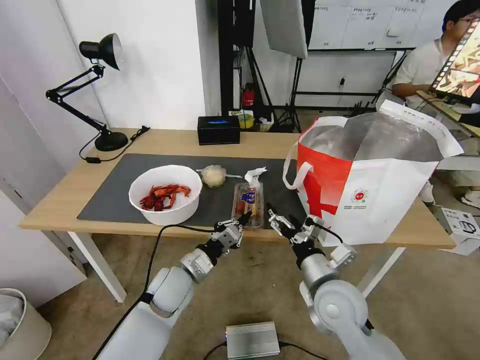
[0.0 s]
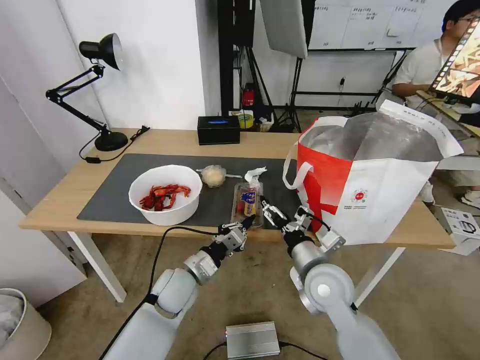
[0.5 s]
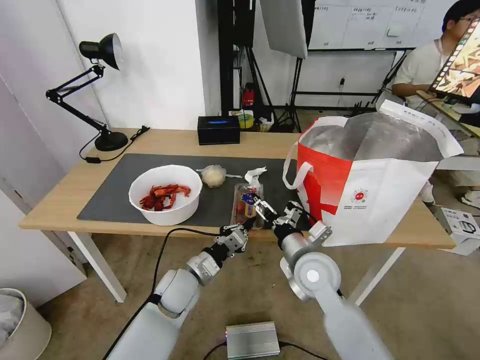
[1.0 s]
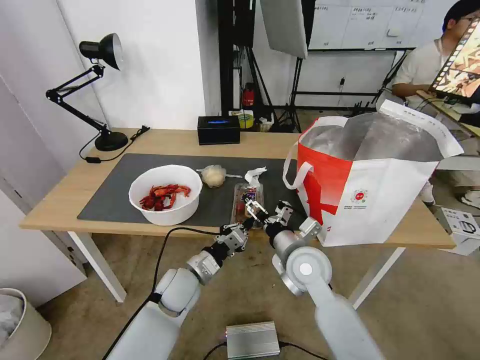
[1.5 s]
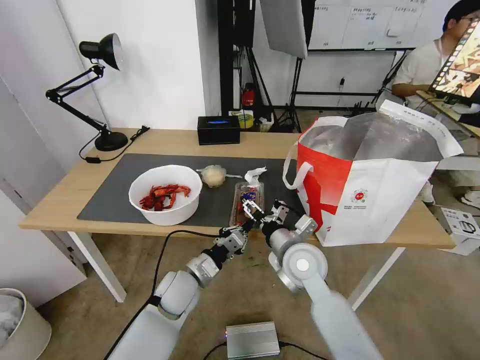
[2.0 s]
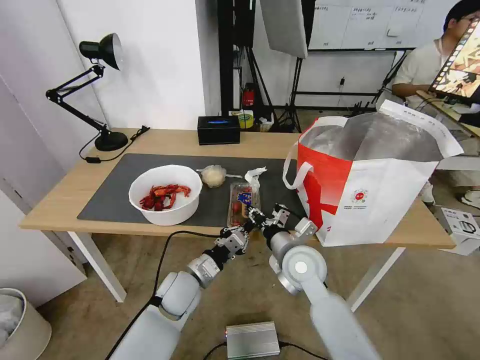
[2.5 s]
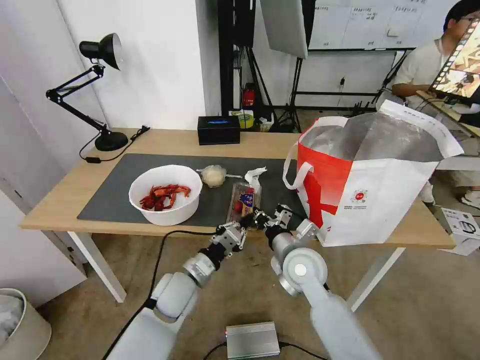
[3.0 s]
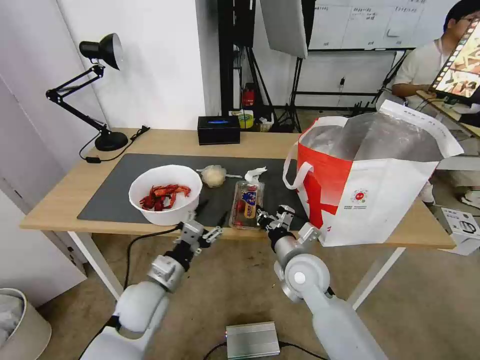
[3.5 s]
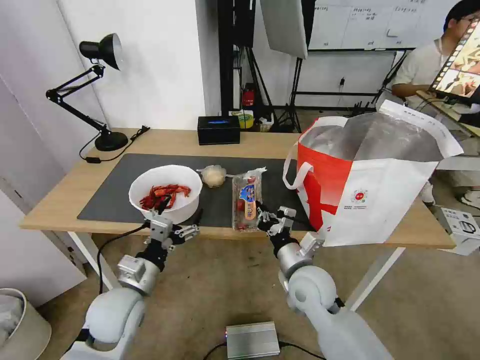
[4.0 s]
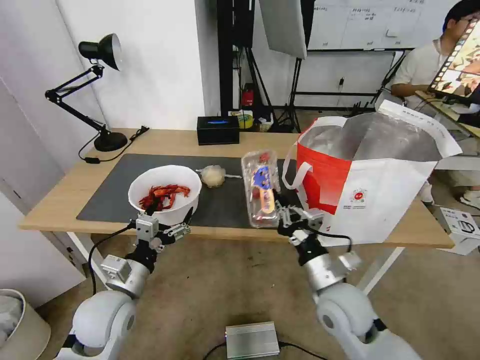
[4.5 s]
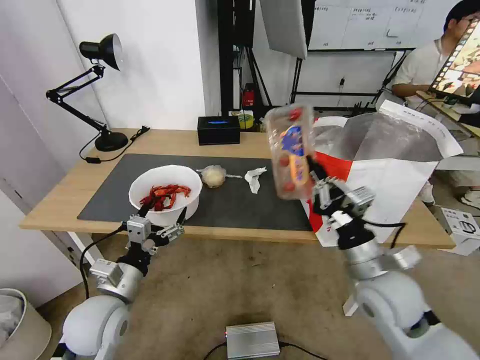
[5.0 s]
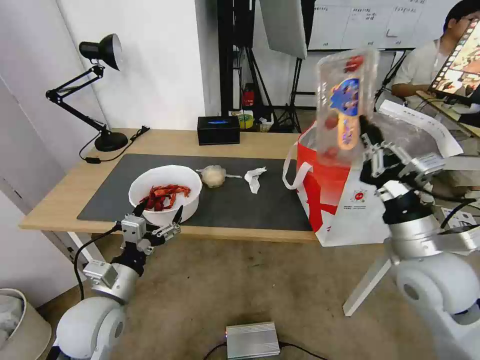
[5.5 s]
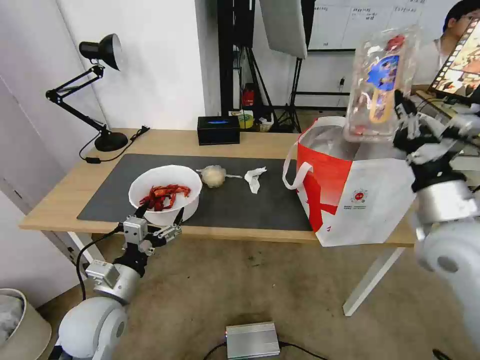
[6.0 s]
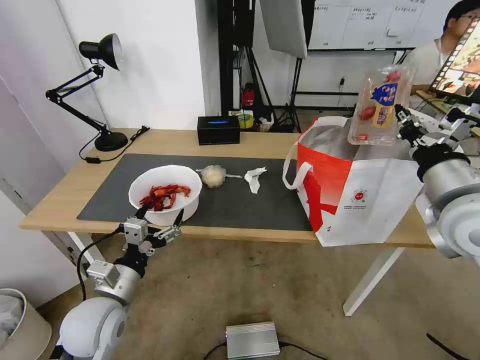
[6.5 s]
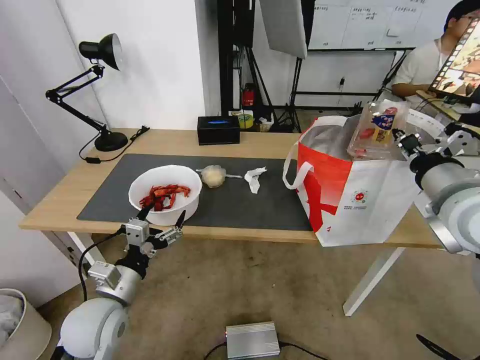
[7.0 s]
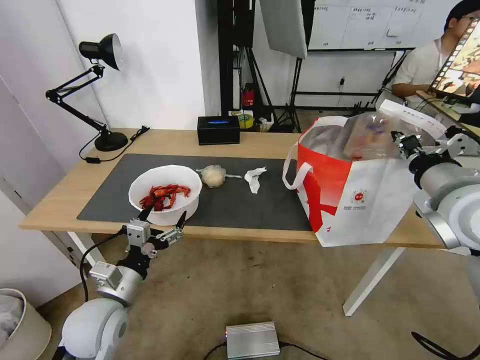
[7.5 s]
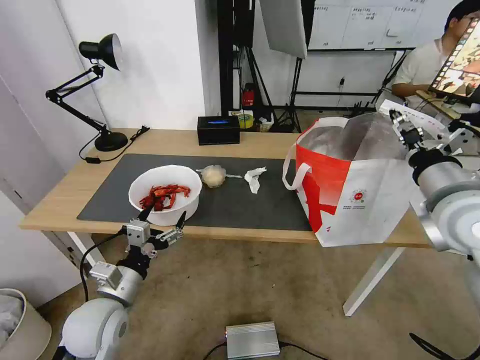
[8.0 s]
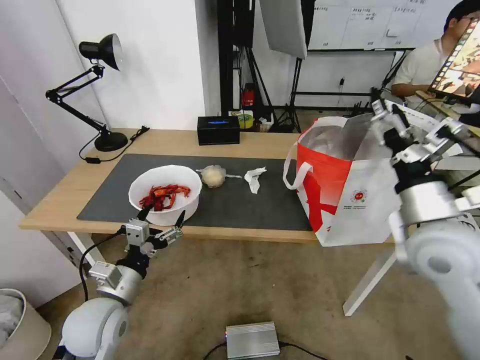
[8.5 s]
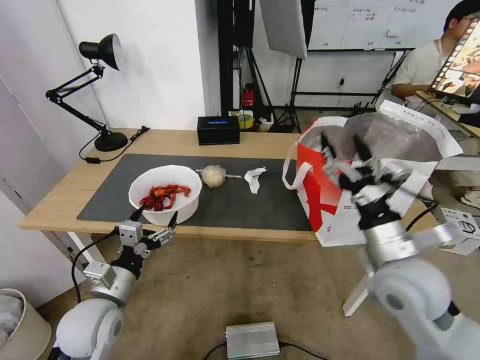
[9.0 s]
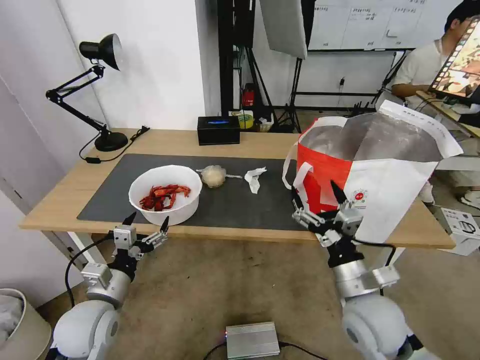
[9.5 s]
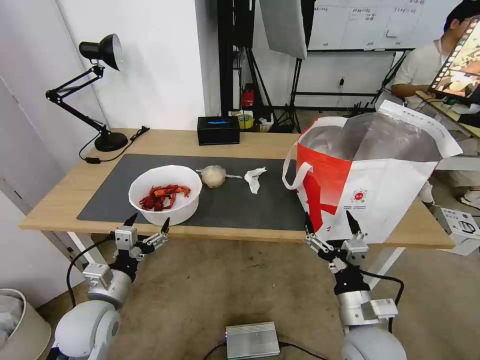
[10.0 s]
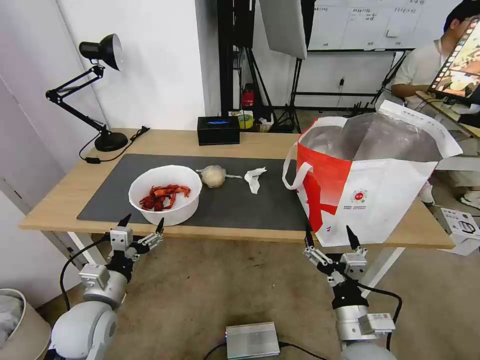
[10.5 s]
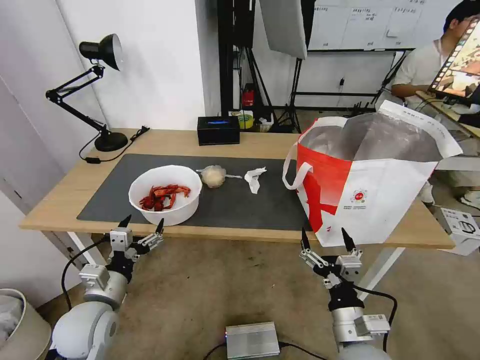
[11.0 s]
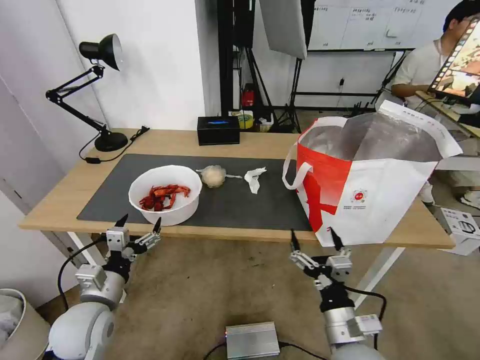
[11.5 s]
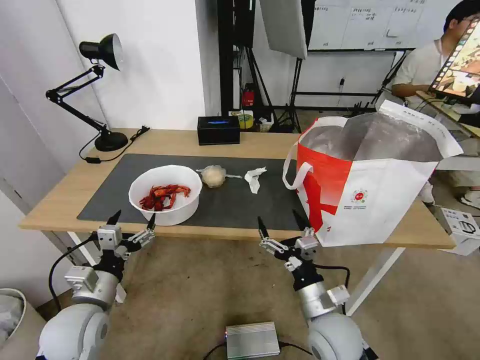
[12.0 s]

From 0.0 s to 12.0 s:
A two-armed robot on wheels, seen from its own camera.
Task of the whole recording: Pick up the trash from the table and place it into the takeout bag.
From 0.0 s to 2.0 s: The right gripper moves forward and to the left, some 10 cm.
From 2.0 s to 4.0 s: The right gripper changes place by approximately 5 cm, and closes up; the left gripper goes roughly 15 cm to the left, upward and backward, and opens.
From 4.0 s to 6.0 s: The right gripper heads upward and to the right, covering some 25 cm.
From 6.0 s to 8.0 s: The right gripper opens.
From 8.0 s to 10.0 s: The right gripper travels downward, backward and to the left by approximately 30 cm, and opens.
From 10.0 s to 12.0 s: The right gripper travels to the left by about 5 cm.

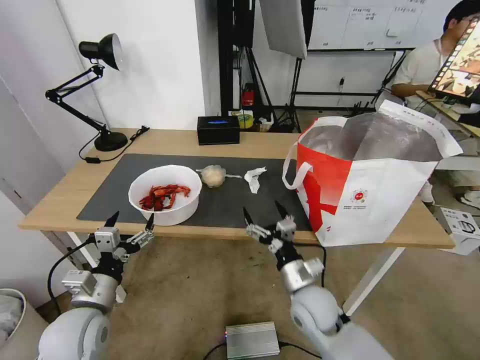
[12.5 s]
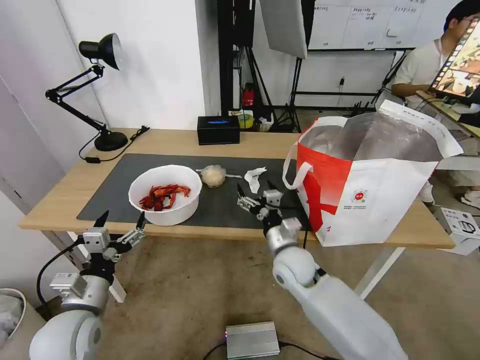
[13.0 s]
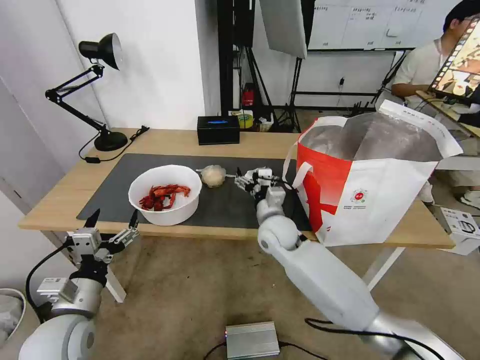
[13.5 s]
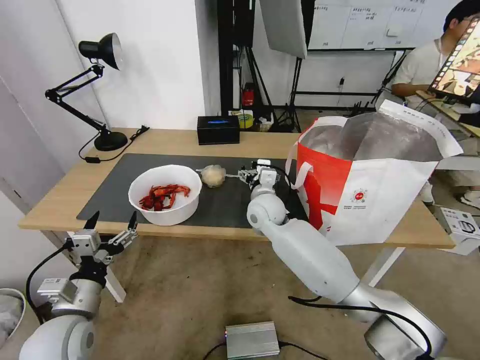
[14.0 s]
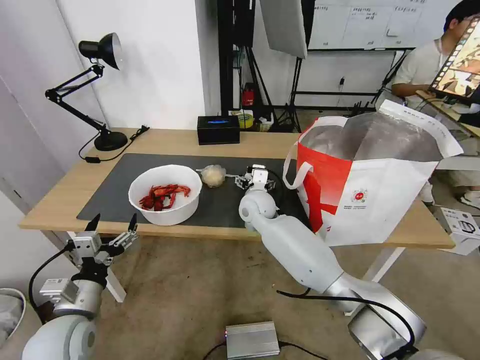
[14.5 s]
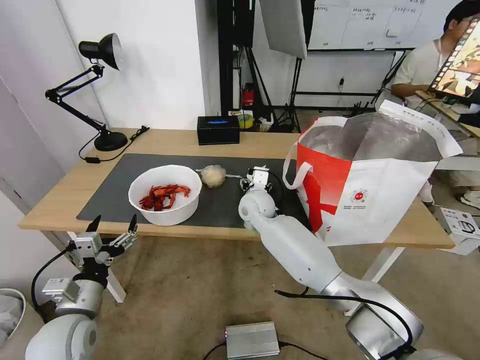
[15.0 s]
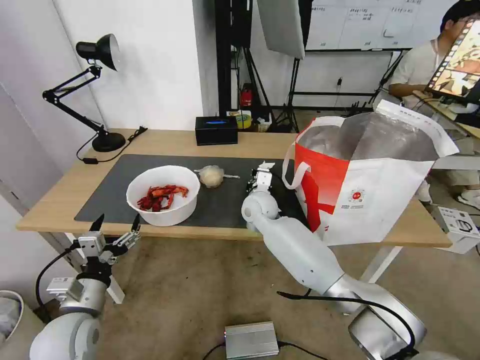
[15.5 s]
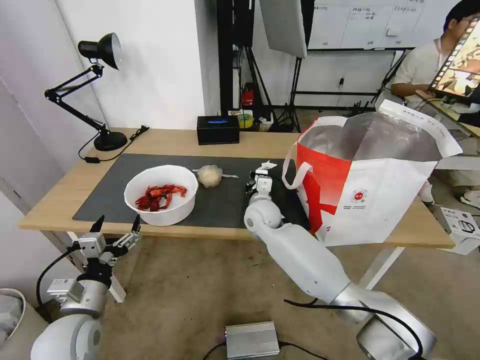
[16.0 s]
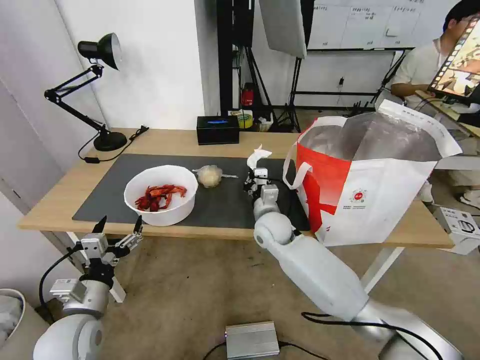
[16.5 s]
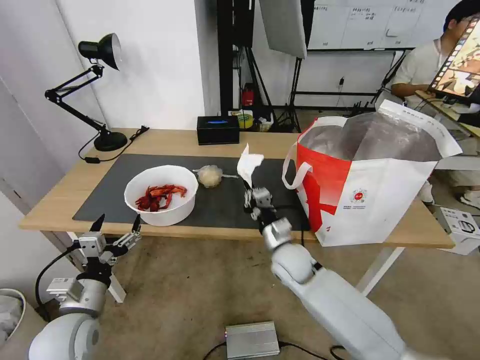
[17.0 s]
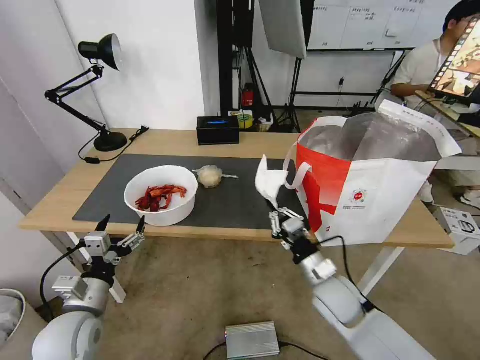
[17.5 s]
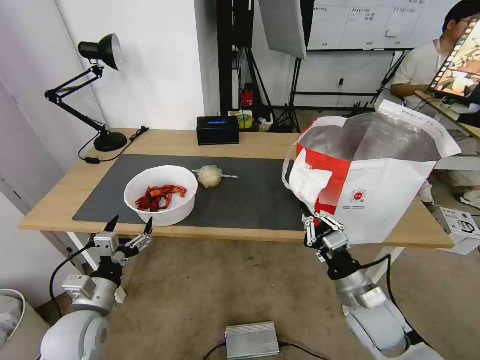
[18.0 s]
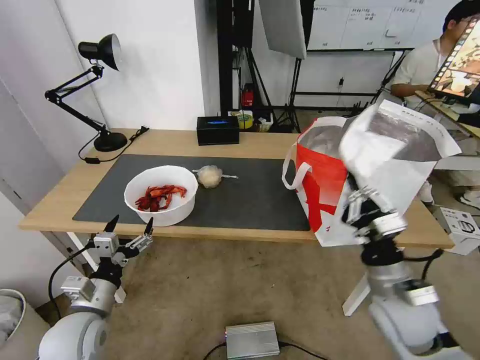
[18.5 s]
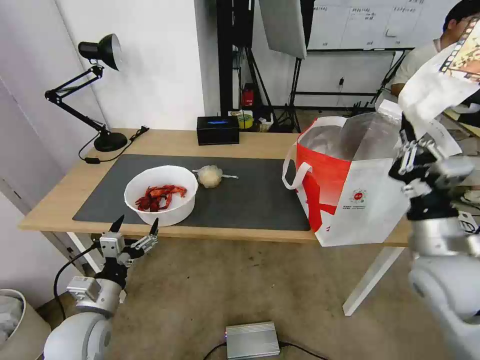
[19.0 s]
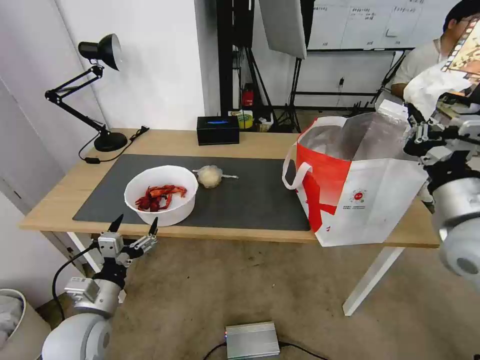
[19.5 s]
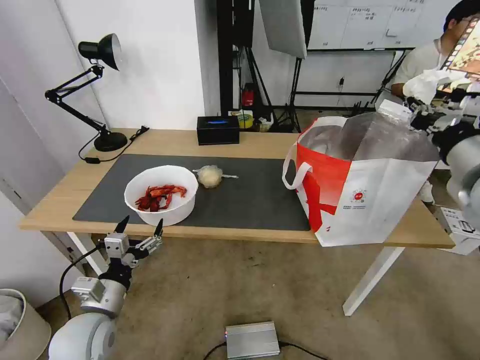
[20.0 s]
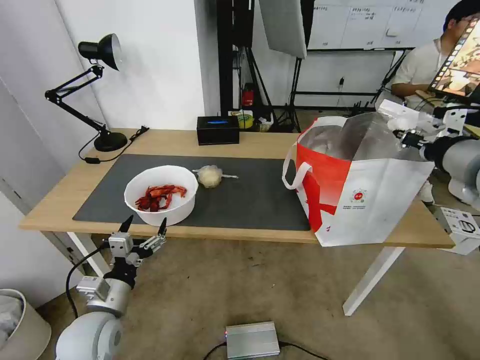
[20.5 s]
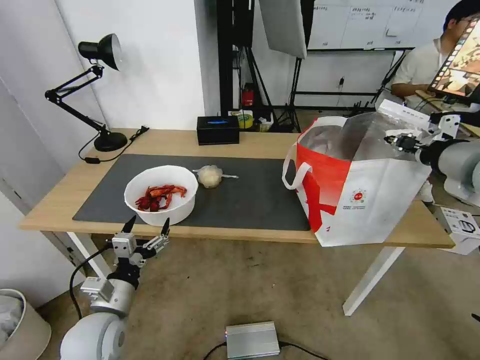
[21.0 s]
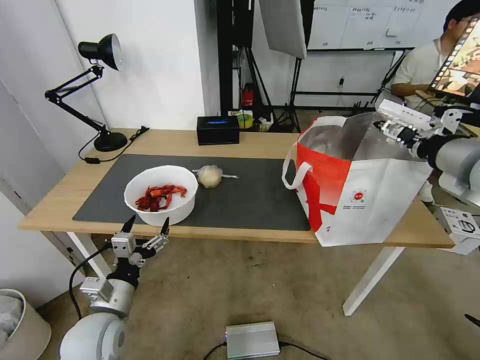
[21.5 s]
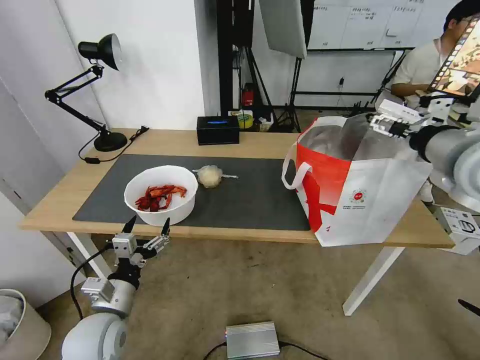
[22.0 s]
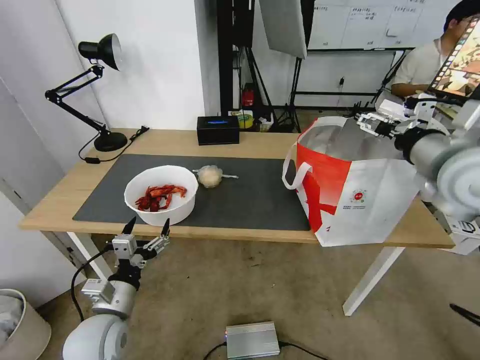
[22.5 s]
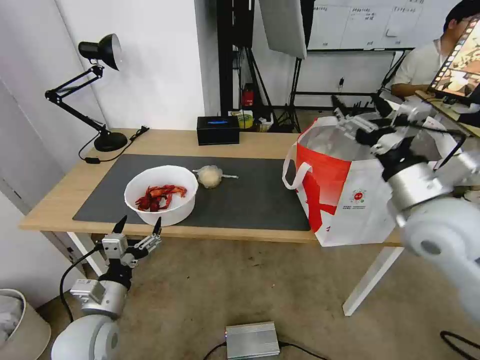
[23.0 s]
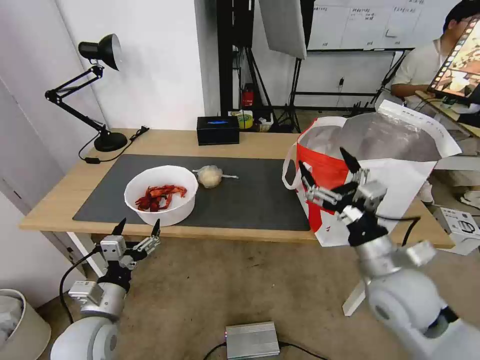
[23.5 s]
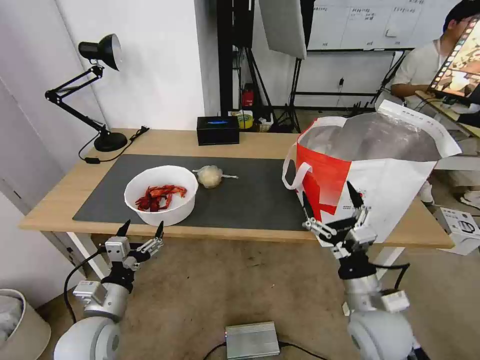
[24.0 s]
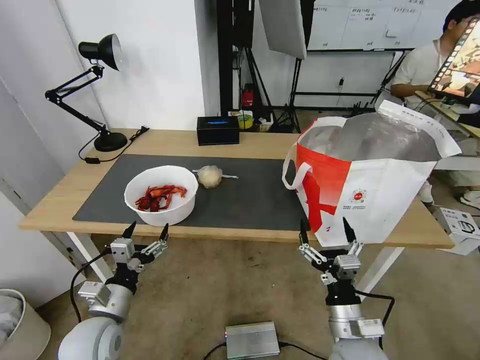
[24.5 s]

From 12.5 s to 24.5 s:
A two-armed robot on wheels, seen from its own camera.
Task of the whole recording: Pick up the trash from the table and place it into the takeout bag.
From 12.5 s to 14.5 s: The right gripper shifts some 25 cm forward and to the left.
From 14.5 s to 16.5 s: The right gripper shifts approximately 5 cm backward, and closes its fingers.
From 16.5 s to 18.5 s: The right gripper heads backward and to the right, covering roughly 30 cm.
From 18.5 s to 20.5 s: The right gripper is displaced upward by roughly 25 cm.
From 20.5 s to 22.5 s: The right gripper opens up.
From 22.5 s to 24.5 s: The right gripper travels downward and backward by about 35 cm.

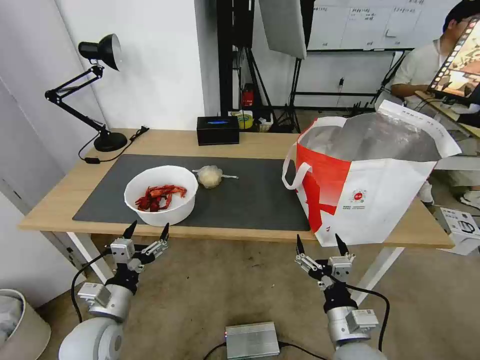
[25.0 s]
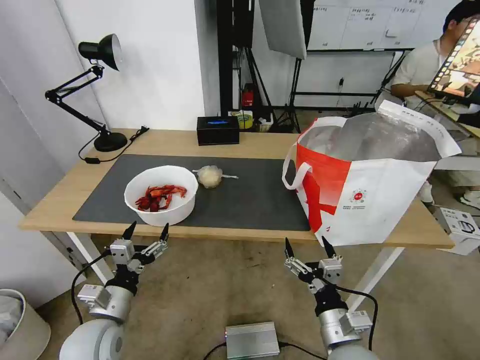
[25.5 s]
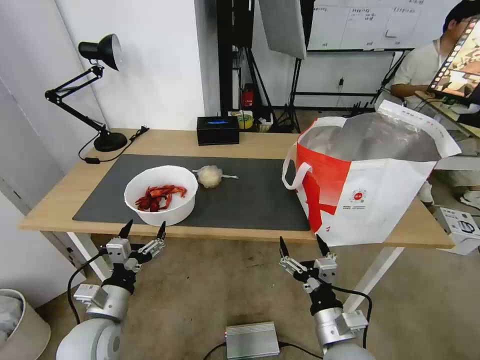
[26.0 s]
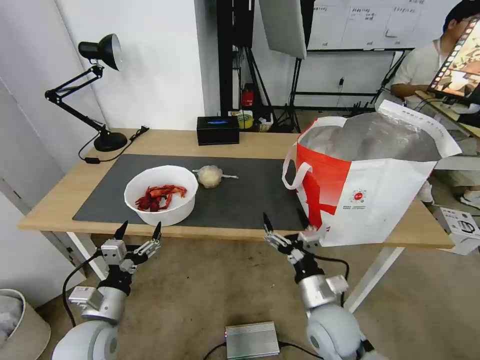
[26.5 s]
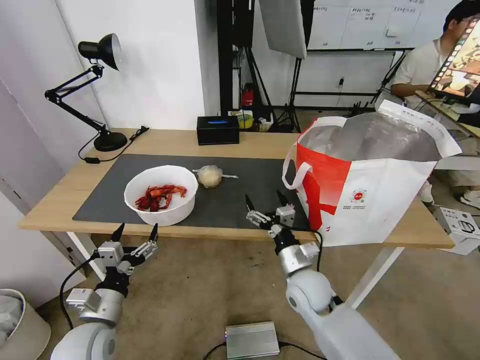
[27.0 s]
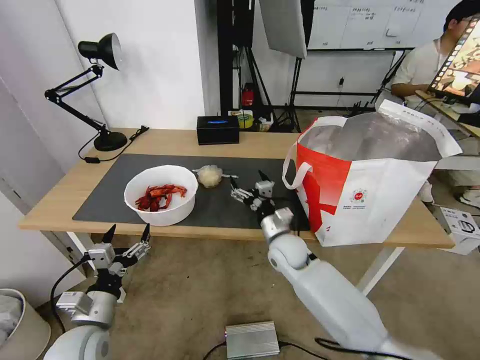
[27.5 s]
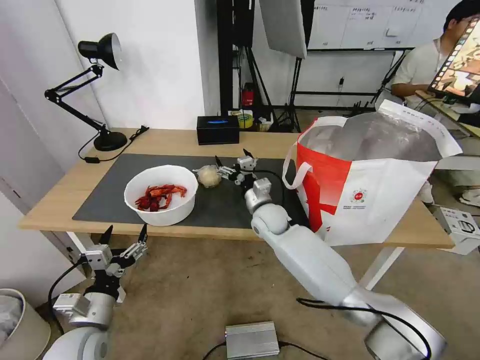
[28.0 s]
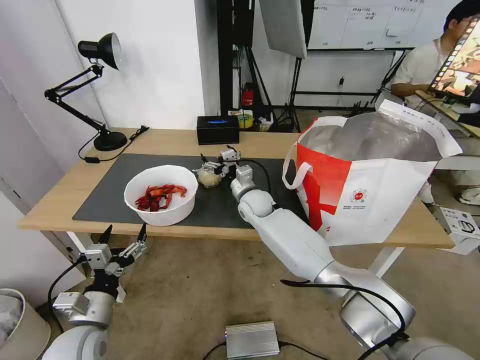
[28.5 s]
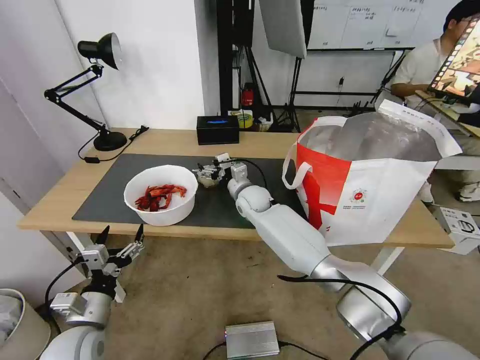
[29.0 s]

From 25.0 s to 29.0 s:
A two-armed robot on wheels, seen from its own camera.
Task of the whole recording: Pick up the trash from the table and place it into the takeout bag.
From 25.0 s to 27.0 s: The right gripper is displaced forward by some 15 cm.
From 27.0 s to 29.0 s: The right gripper shifts roughly 25 cm forward and to the left.
